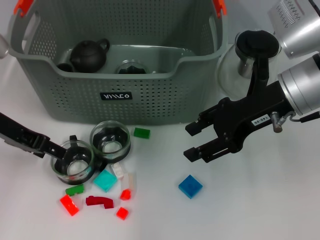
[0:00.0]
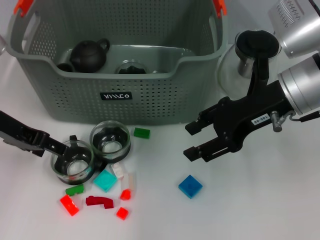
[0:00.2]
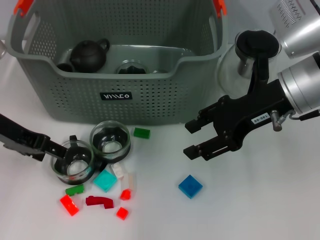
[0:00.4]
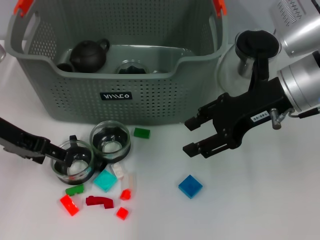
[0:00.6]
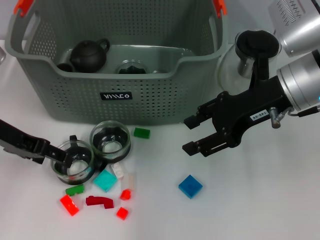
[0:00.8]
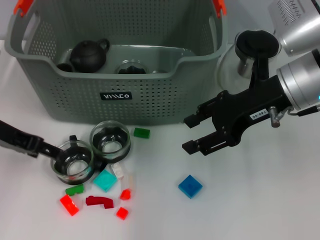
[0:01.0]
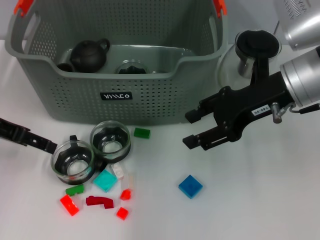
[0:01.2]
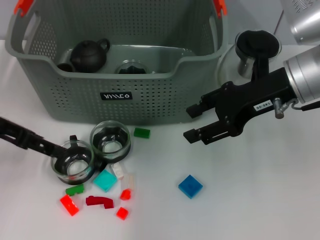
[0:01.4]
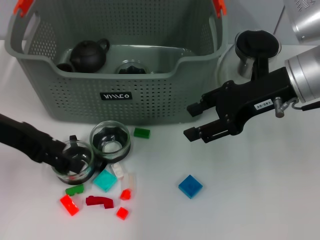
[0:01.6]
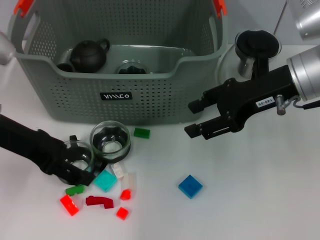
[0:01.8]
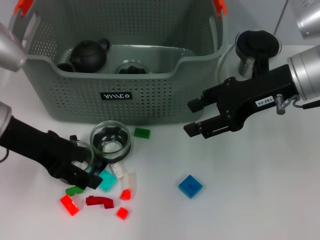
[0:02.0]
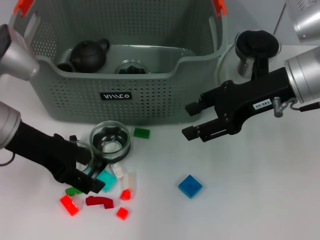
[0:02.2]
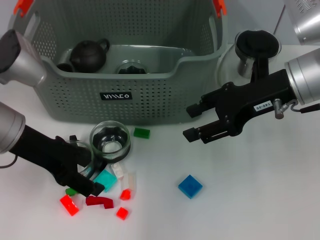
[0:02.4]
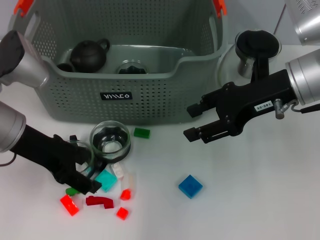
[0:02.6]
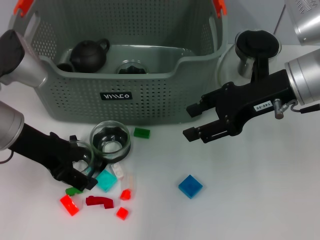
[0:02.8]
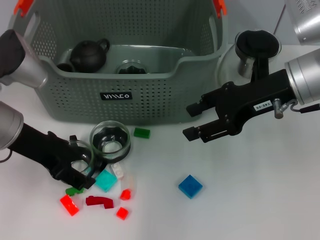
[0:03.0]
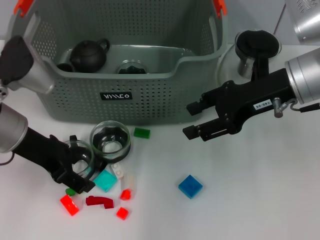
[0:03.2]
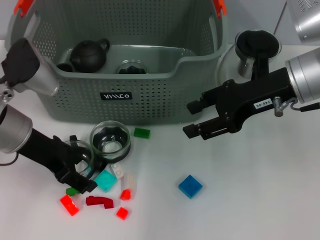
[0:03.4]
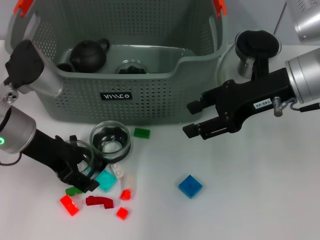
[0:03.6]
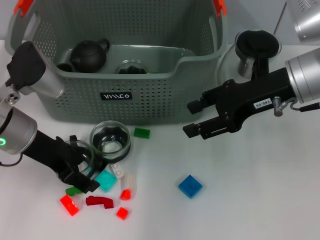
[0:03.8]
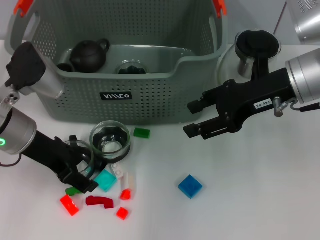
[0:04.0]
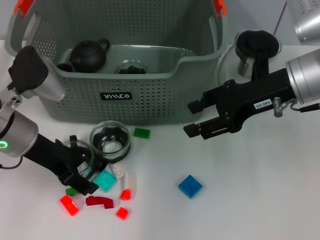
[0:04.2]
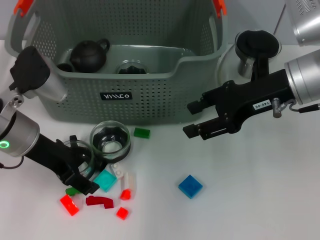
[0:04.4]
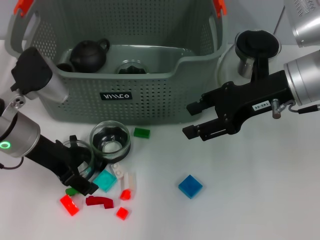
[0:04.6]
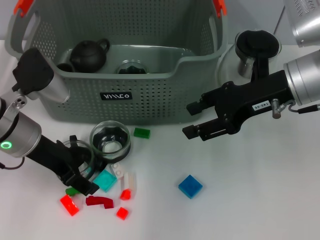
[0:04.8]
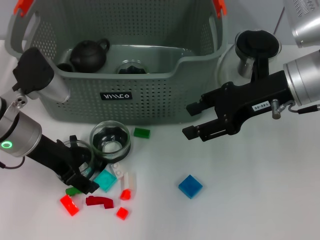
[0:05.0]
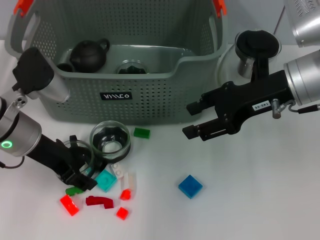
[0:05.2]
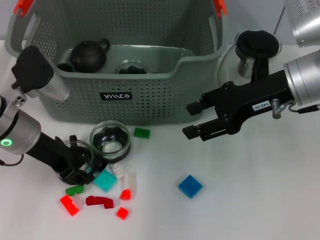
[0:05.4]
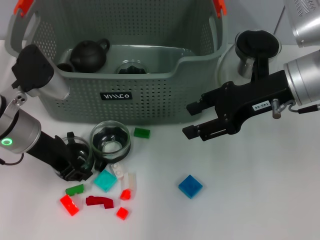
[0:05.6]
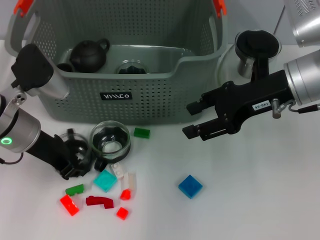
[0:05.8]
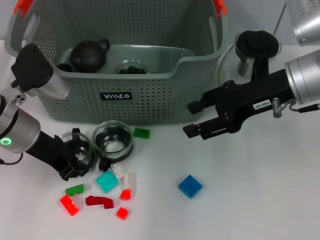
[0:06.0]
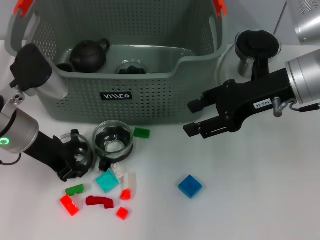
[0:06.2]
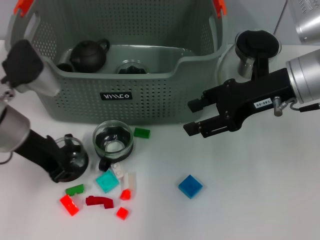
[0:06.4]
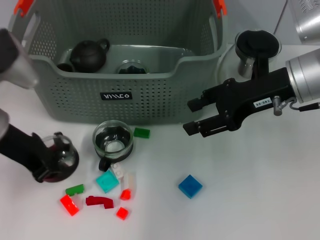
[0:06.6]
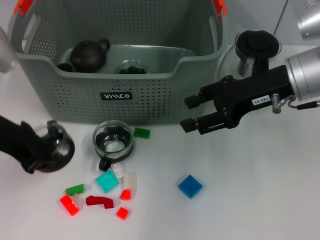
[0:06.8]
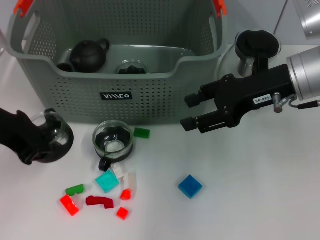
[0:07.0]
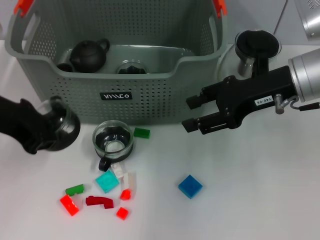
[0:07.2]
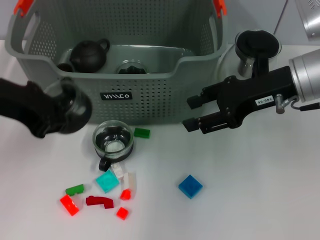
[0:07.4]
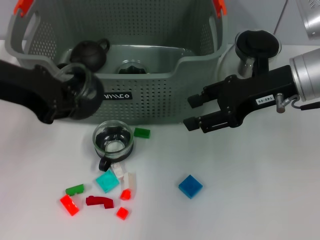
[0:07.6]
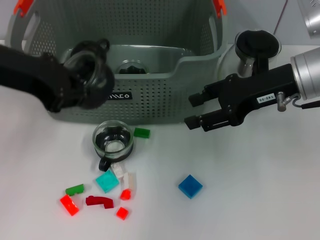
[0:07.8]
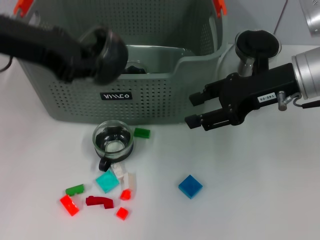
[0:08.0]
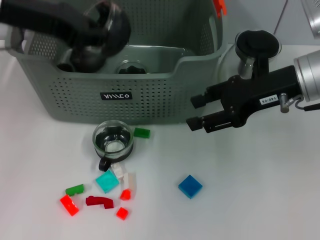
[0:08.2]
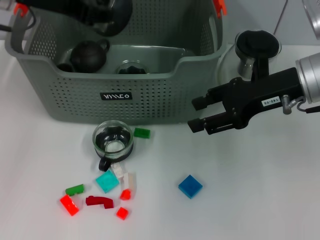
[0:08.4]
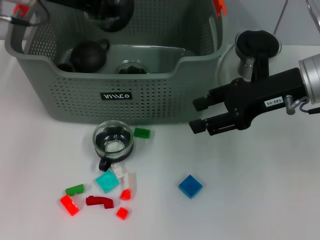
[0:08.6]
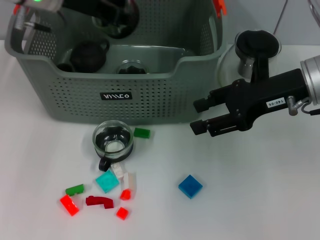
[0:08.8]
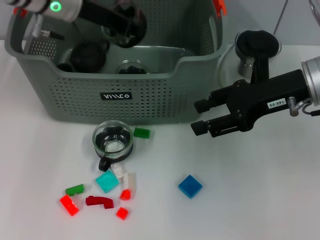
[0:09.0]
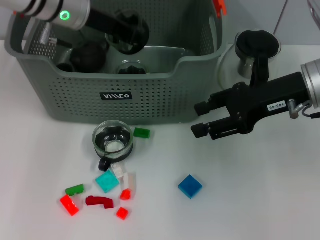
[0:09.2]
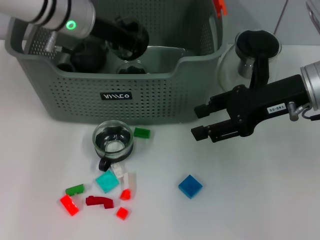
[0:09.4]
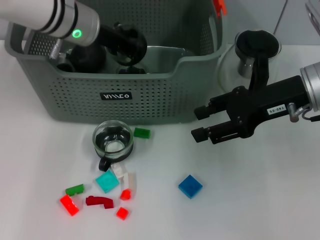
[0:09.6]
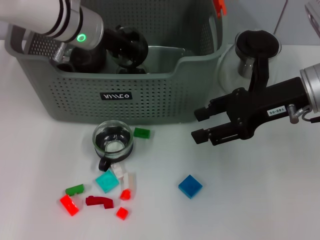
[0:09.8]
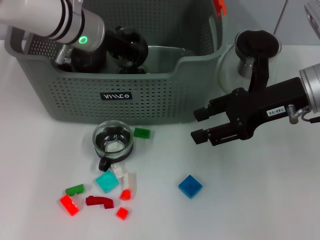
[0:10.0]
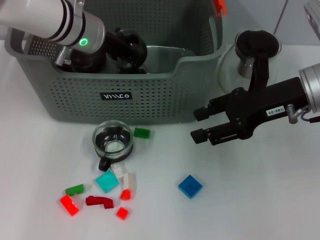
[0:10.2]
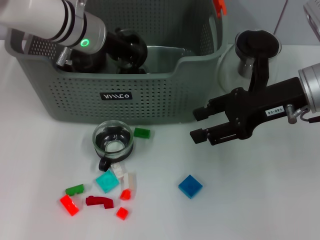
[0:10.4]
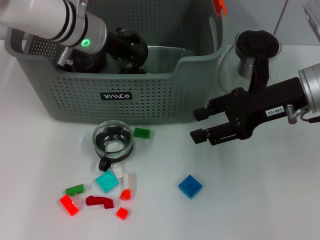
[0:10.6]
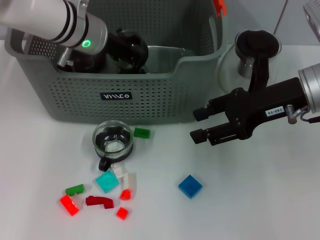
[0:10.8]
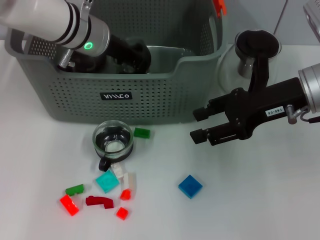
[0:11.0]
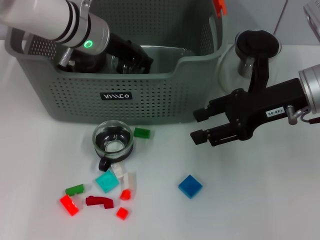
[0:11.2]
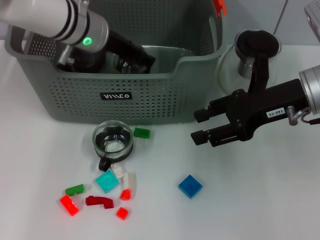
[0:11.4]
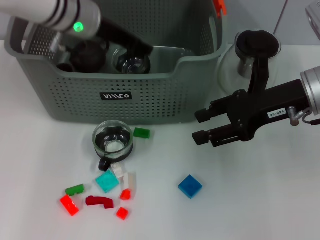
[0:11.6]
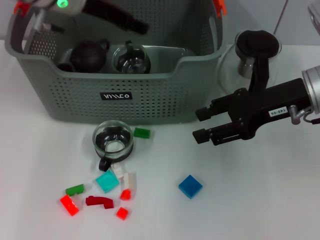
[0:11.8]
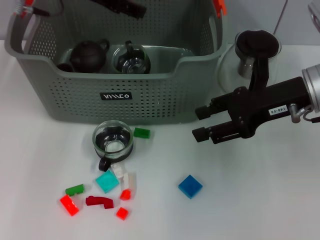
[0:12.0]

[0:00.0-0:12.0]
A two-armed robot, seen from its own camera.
Task of the whole recording: pick up the teacup on the table and place it into the storage bin, pick up the block on the table and place it into the storage bin.
Step, 0:00.0 to 0:06.6: Grasp the cup with left gripper.
Step, 0:06.8 to 0:11.8: Place the cup in the storage box with left gripper.
0:00.0 to 0:01.6: The left gripper moves some 5 cm.
0:01.6 to 0:03.0: The left gripper changes place by approximately 5 cm.
0:03.0 to 0:04.4: The grippers make only small movements.
0:04.4 to 0:06.0: The left gripper closes its fingers.
0:06.0 to 0:07.6: The left gripper moves upward, some 15 cm.
0:07.6 to 0:09.0: The left gripper moves forward and to the right, approximately 15 cm.
0:09.0 to 0:10.4: The left gripper goes some 5 cm downward.
0:10.4 to 0:12.0: The left gripper goes roughly 10 cm upward, and opens its fingers.

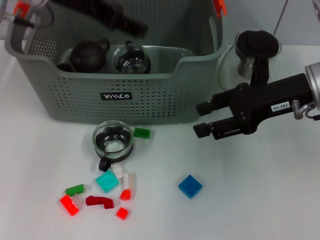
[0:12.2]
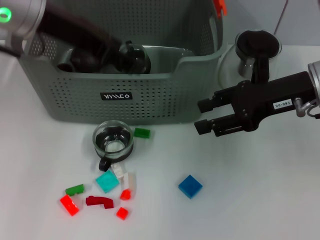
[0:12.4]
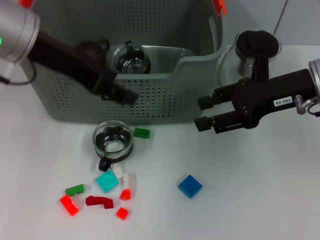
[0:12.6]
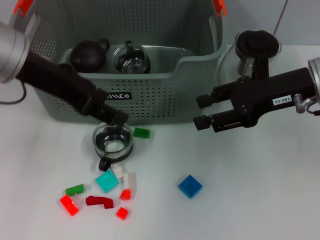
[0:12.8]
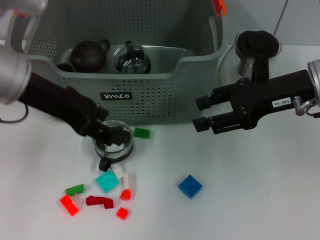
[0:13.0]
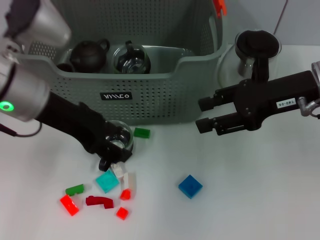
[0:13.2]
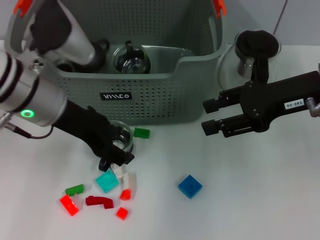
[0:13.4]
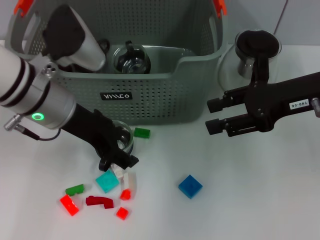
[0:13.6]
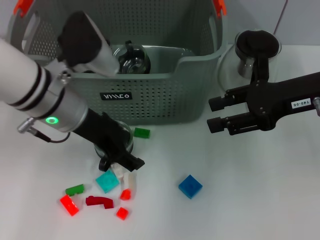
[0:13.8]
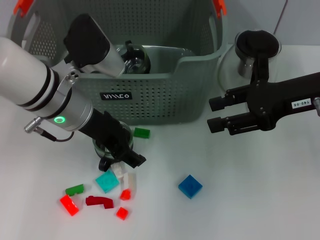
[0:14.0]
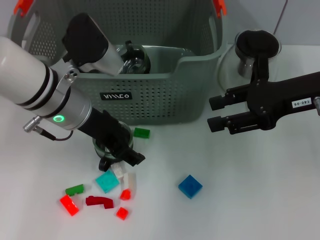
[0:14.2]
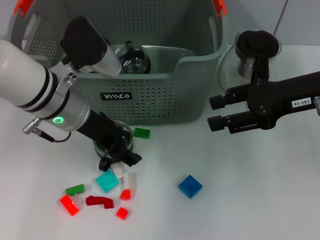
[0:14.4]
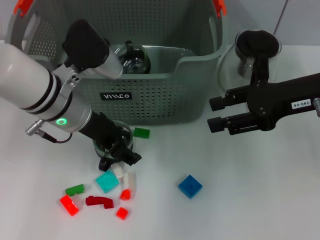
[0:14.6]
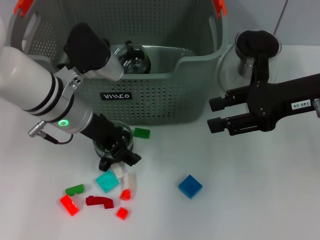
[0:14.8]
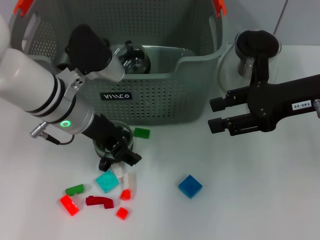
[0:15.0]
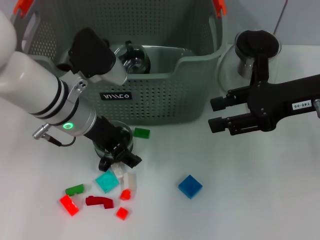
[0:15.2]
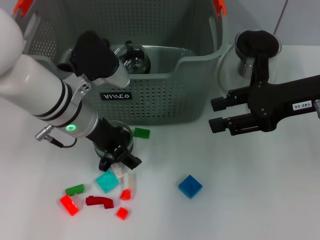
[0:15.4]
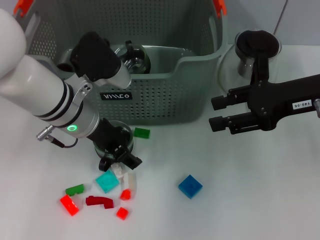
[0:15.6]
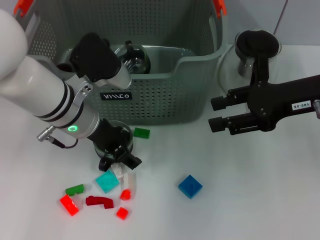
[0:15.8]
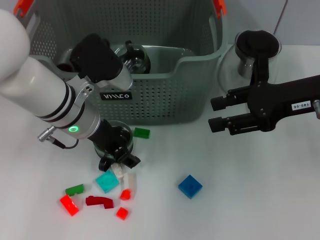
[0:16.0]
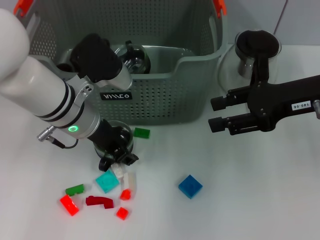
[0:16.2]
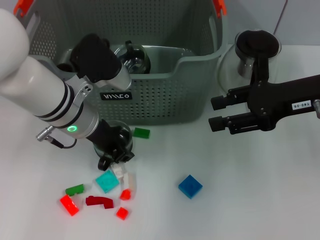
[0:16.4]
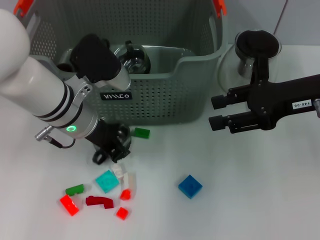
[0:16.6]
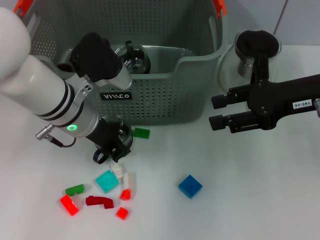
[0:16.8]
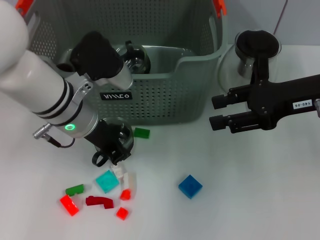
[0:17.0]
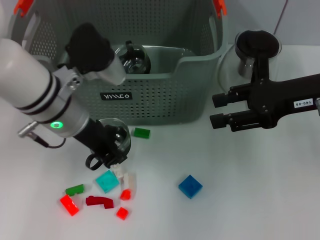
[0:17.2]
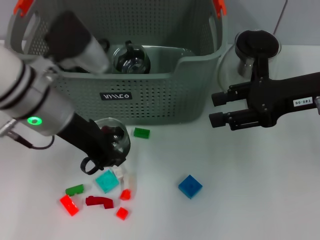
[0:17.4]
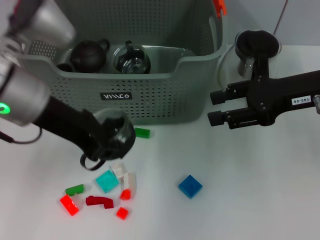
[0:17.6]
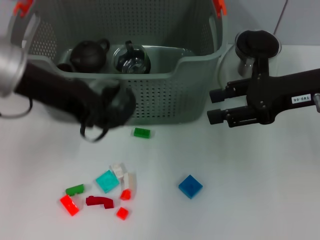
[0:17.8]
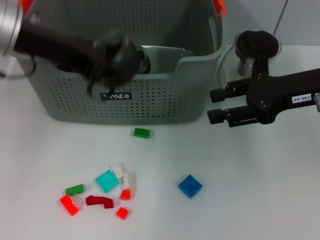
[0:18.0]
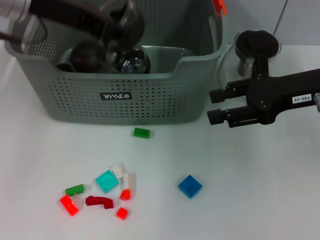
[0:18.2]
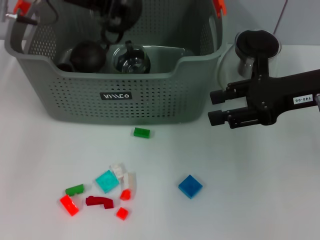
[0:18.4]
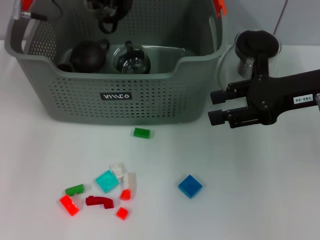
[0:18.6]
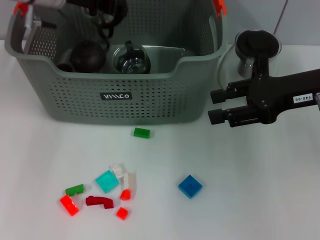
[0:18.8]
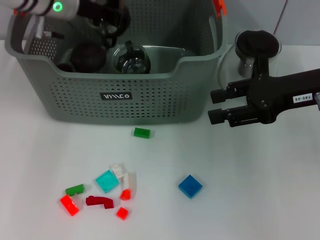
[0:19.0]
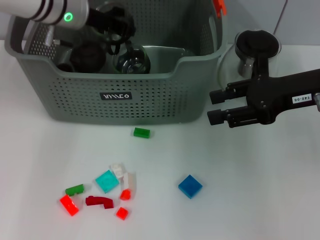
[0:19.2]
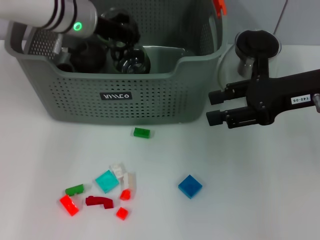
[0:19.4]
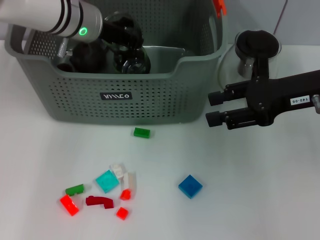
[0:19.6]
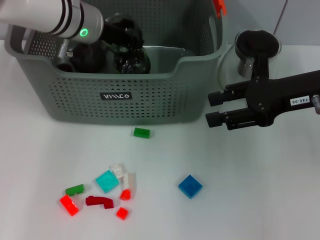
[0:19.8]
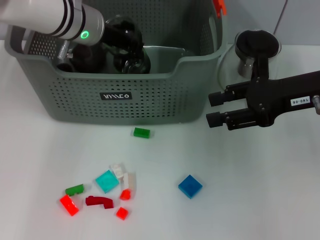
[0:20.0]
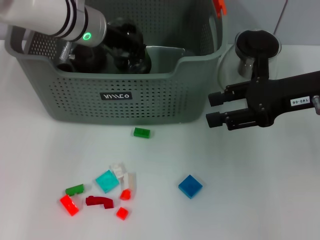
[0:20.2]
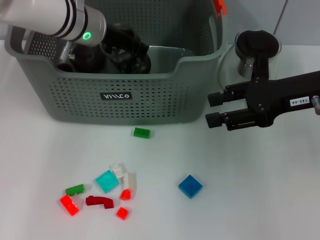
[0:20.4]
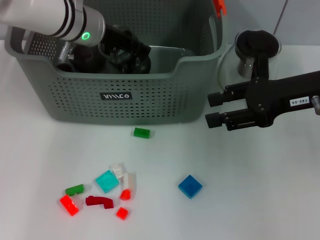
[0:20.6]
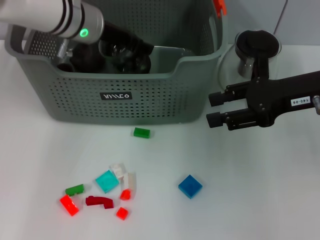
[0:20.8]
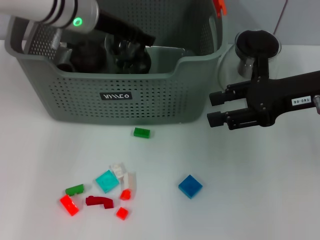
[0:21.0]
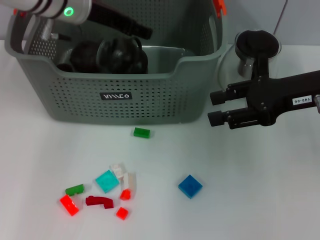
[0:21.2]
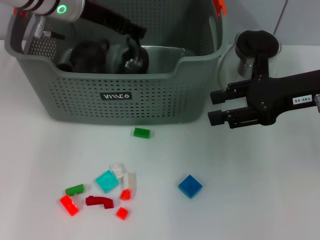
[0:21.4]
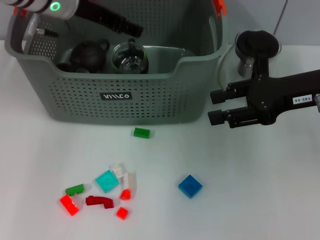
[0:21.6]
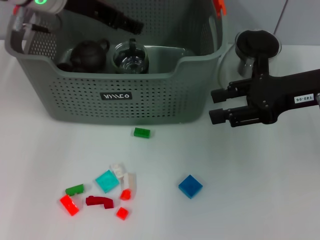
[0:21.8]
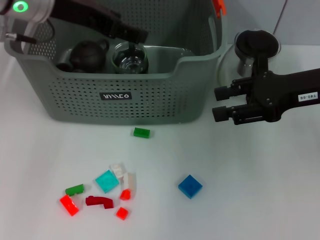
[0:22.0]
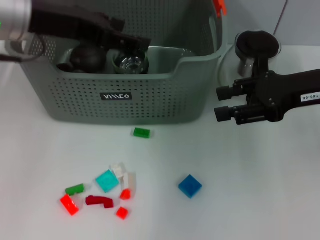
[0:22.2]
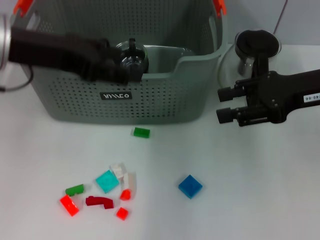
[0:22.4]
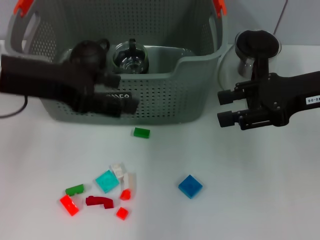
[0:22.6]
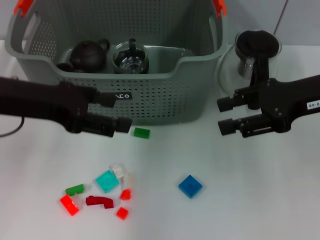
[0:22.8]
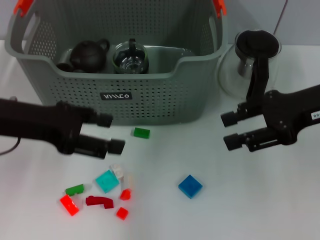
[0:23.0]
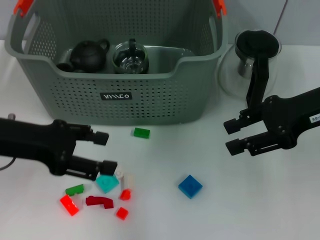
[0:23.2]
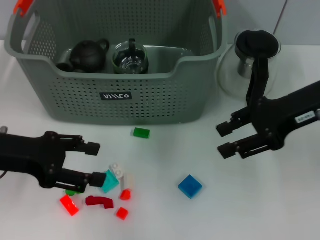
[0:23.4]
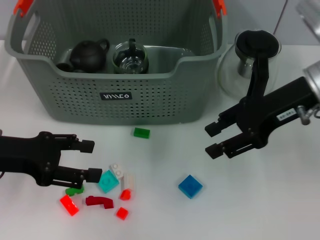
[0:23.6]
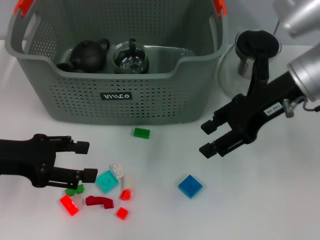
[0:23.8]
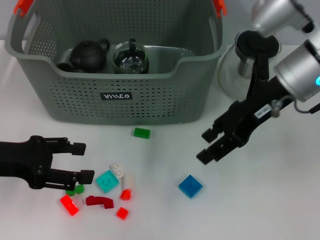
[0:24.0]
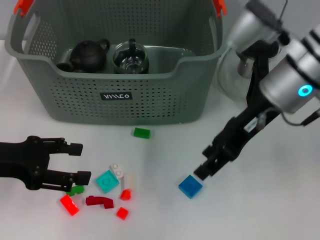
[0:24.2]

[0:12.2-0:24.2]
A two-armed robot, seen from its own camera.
Task of the whole recording: pick up the teacup on the table and place it into the storage bin, pick up the block on the table and place it into the storage bin.
Step, 0:12.2 to 0:17.0: Grasp the cup with left gripper.
Step, 0:17.4 to 0:21.8: Place the cup in the storage box with left gripper.
0:12.2 to 0:13.8: The left gripper heads downward and backward, covering some 15 cm.
0:13.8 to 0:15.2: The grippers stay close to where they were, moving slightly.
0:15.2 to 0:16.6: The left gripper closes its fingers.
0:16.6 to 0:18.2: The left gripper moves upward, roughly 15 cm.
0:18.2 to 0:19.8: The left gripper travels downward, forward and to the right by approximately 15 cm.
0:19.8 to 0:21.2: The left gripper opens.
0:21.2 to 0:22.6: The left gripper shifts roughly 15 cm backward and to the left.
0:22.6 to 0:24.2: The right gripper heads to the left, covering approximately 10 cm. The left gripper shifts about 15 cm downward and to the left.
